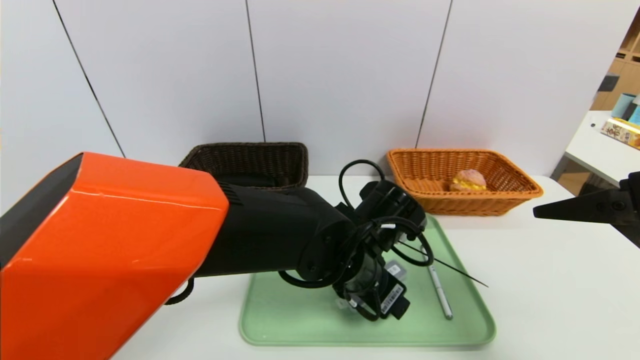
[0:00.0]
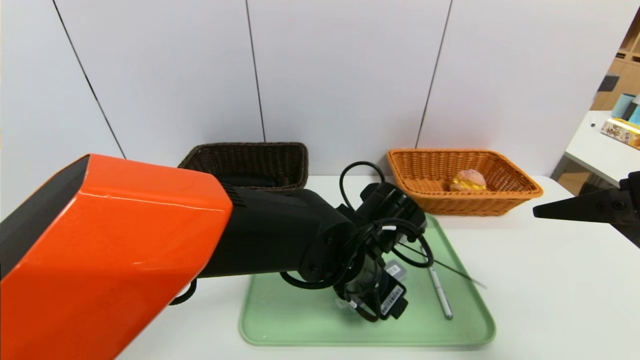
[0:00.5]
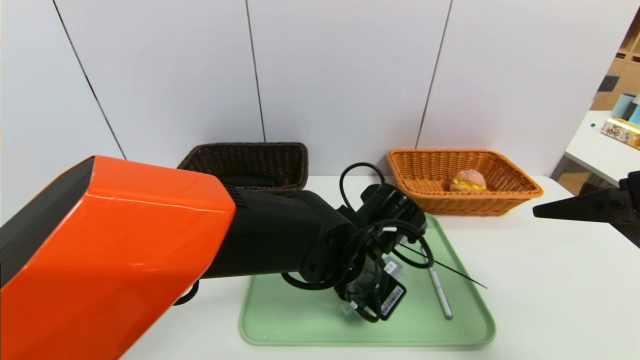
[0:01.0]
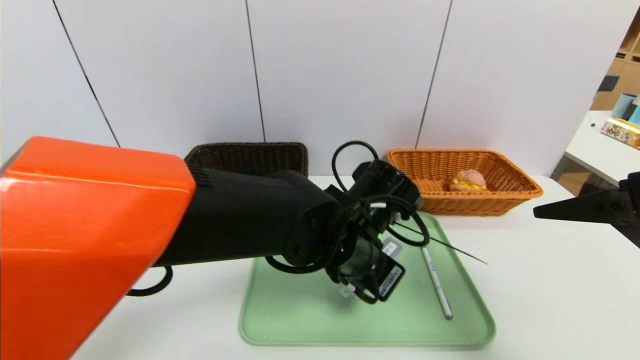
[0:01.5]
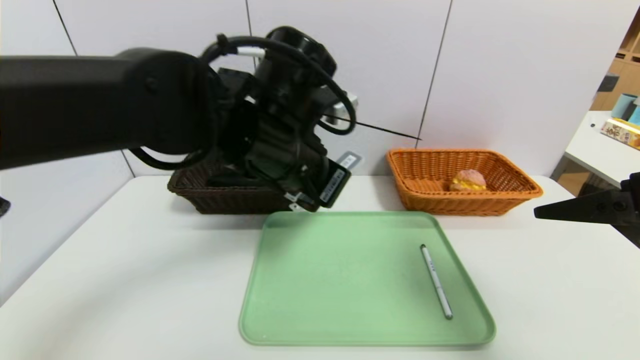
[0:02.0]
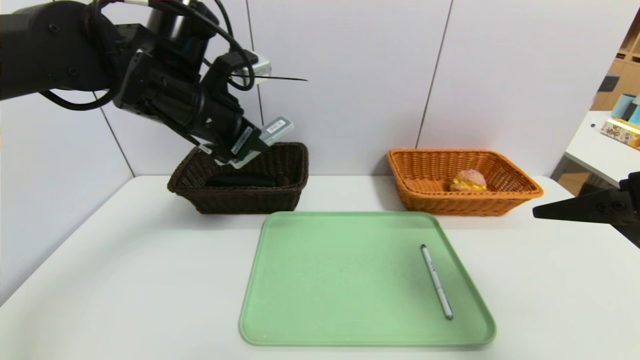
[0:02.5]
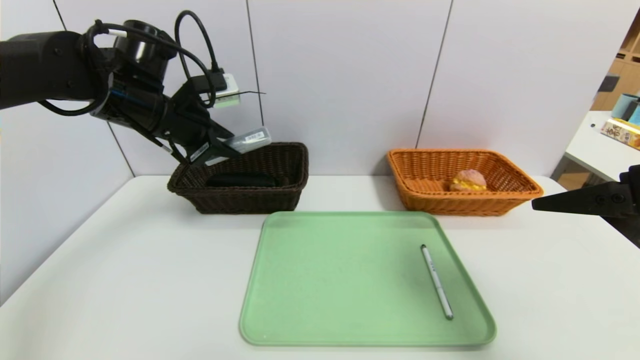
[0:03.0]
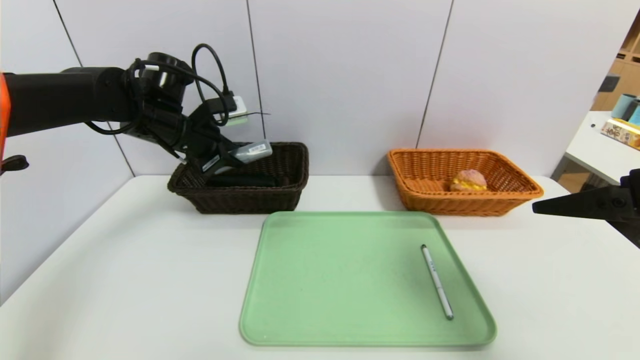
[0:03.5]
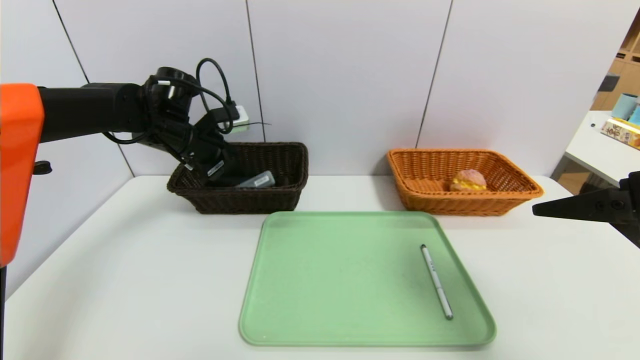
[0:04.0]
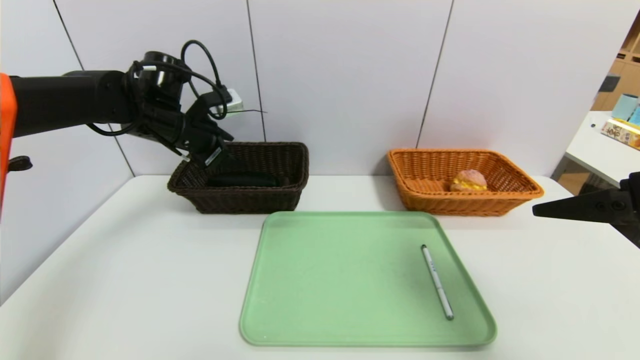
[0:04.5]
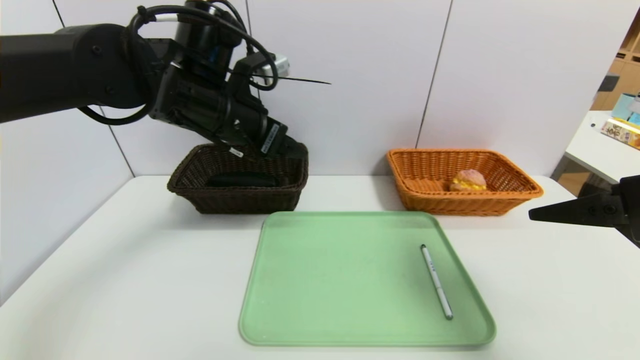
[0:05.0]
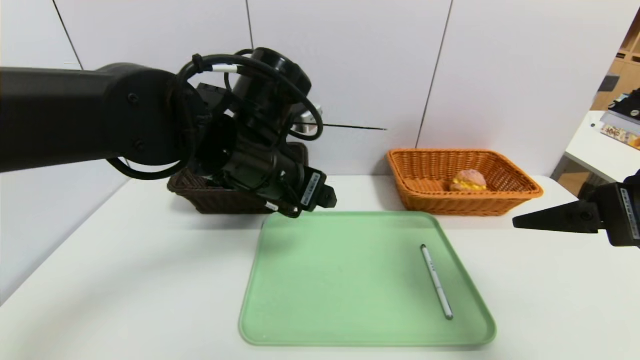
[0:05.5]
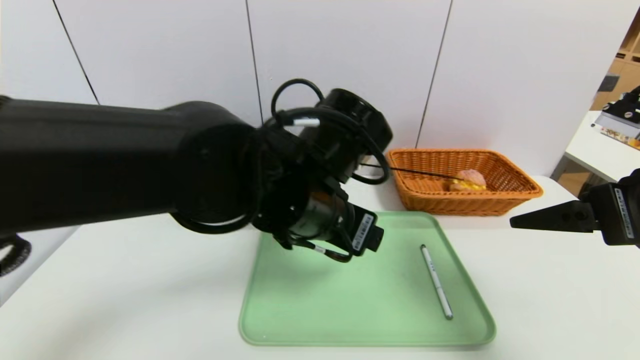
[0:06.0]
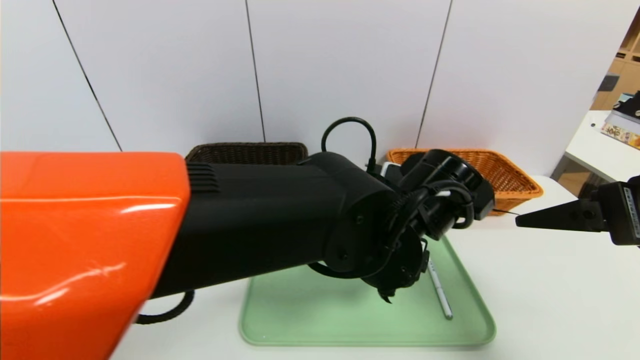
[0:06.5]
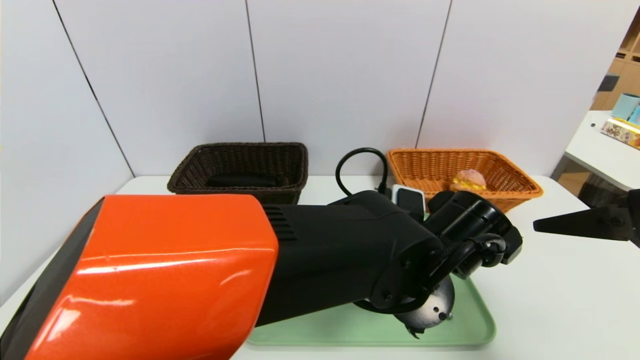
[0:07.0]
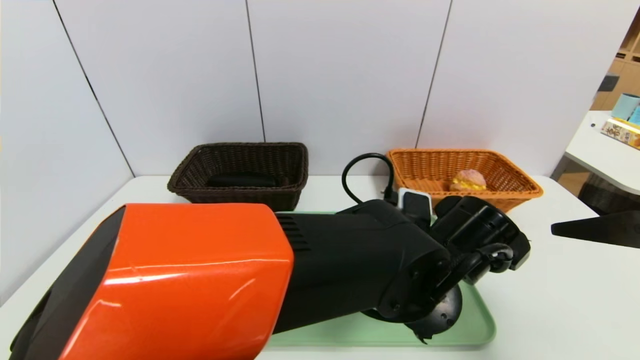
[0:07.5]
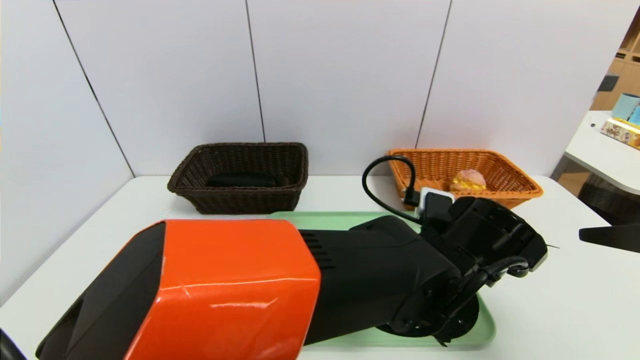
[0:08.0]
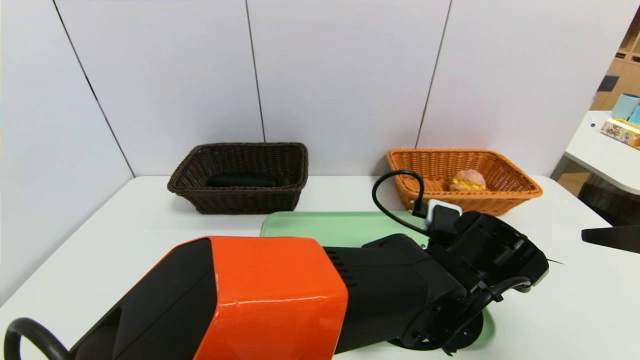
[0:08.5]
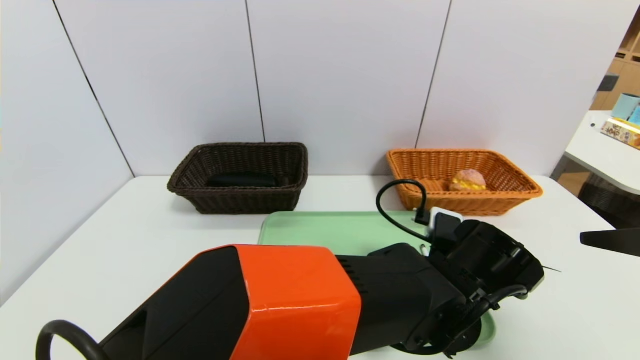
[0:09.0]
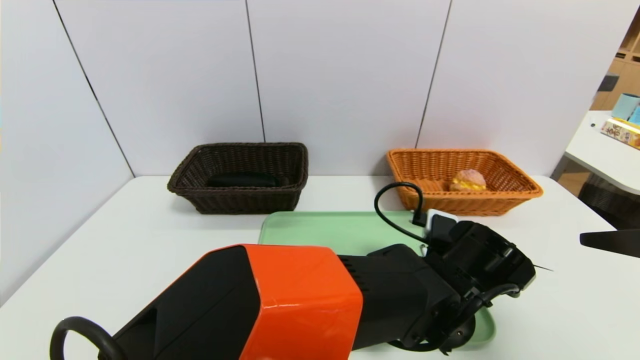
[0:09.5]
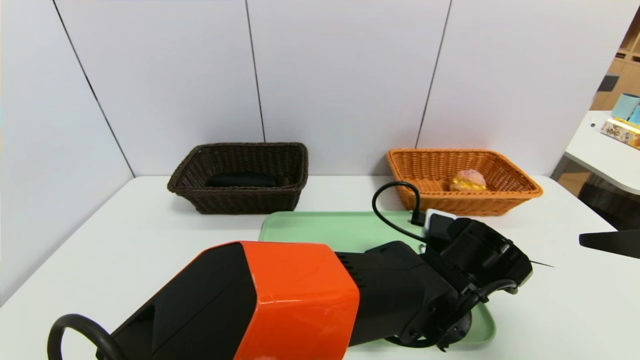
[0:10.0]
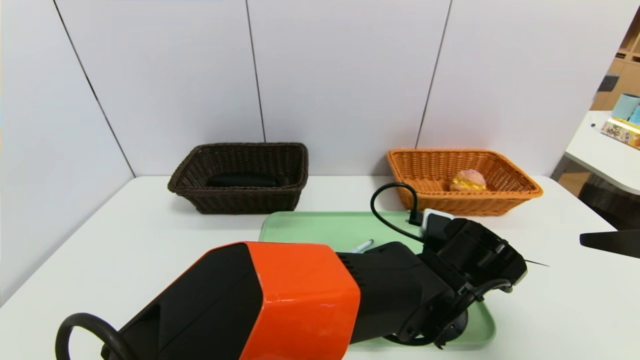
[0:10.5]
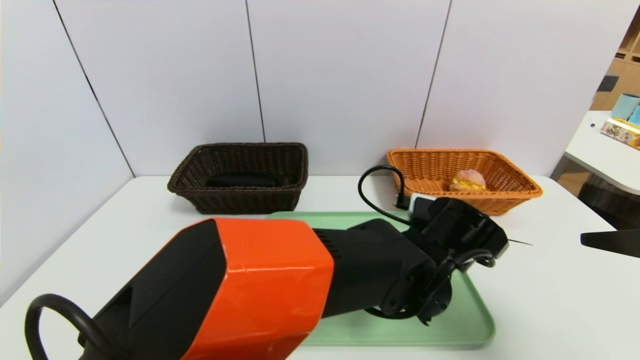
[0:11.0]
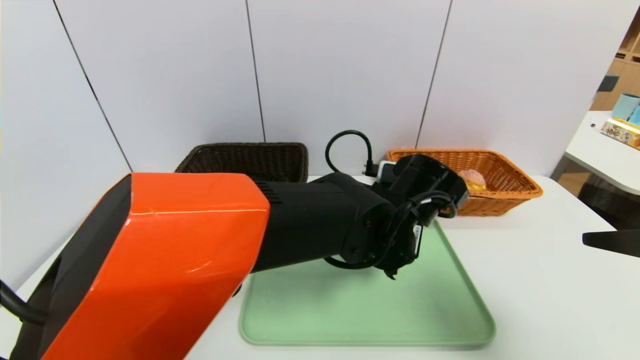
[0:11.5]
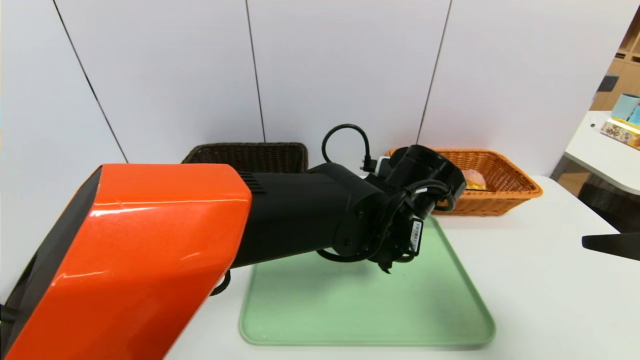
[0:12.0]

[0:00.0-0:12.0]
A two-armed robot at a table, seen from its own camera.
Task of the whole recording: place the food in the right basket with the right gripper, and place the non food items in the left basket with the left gripper.
Step, 0:00.0 to 0:04.0: Grasp the compass and put it in the left basket.
0:00.0 to 0:02.0: The left gripper heads upward and to the left, covering roughly 15 cm, and closes its fingers.
0:02.0 to 0:04.0: The left gripper travels to the left and forward by roughly 25 cm.
0:04.0 to 0:06.0: The left gripper heads to the right and backward, covering roughly 30 cm, and opens.
0:06.0 to 0:08.0: The left gripper travels to the right and downward by roughly 15 cm. The right gripper travels backward by roughly 5 cm.
0:08.0 to 0:10.0: The left gripper closes its fingers.
0:10.0 to 0:12.0: The left gripper is displaced upward and to the left by about 10 cm, and closes, then opens again.

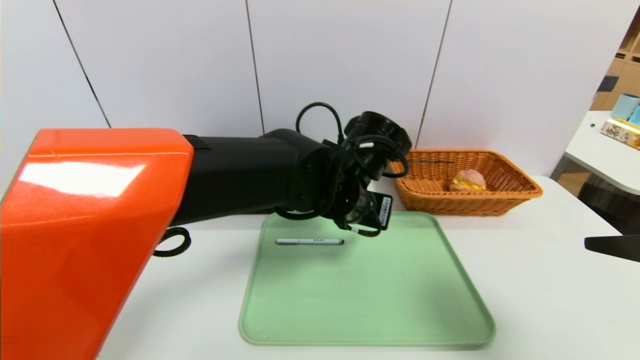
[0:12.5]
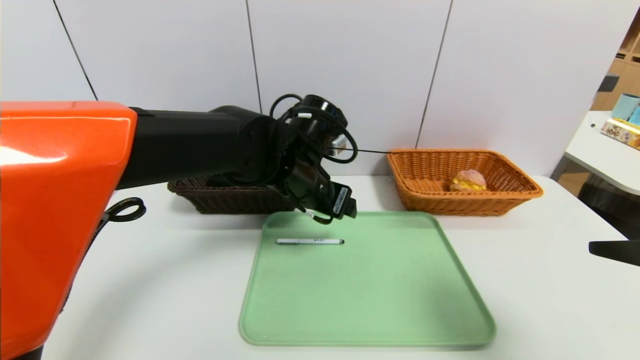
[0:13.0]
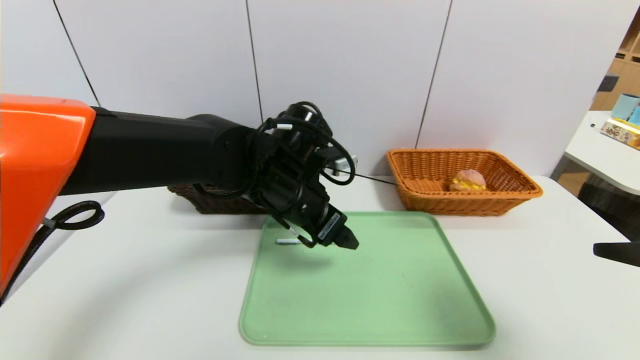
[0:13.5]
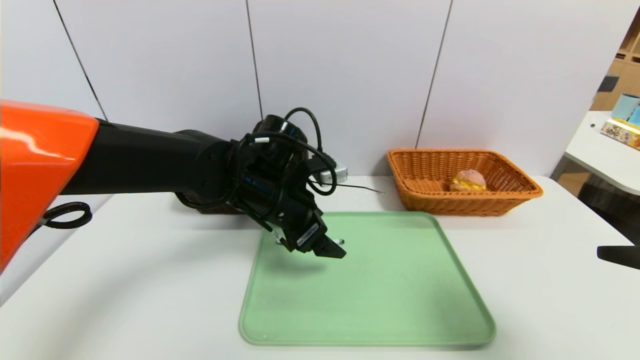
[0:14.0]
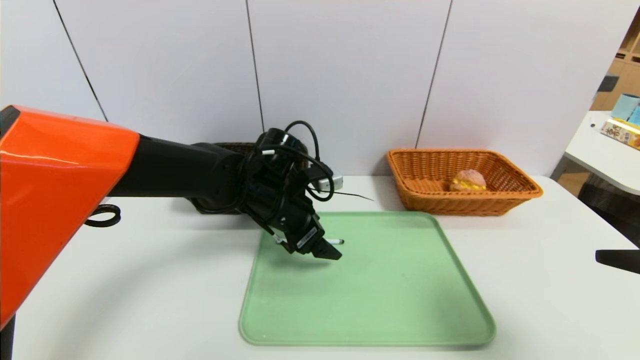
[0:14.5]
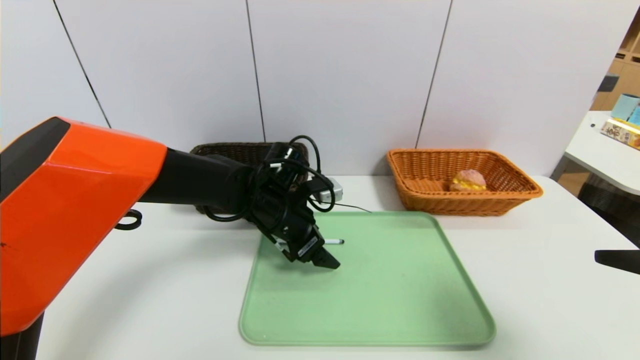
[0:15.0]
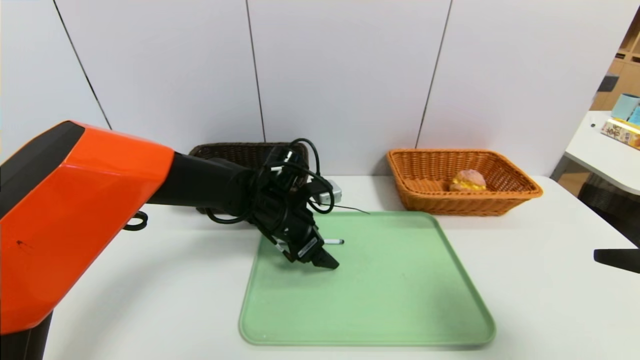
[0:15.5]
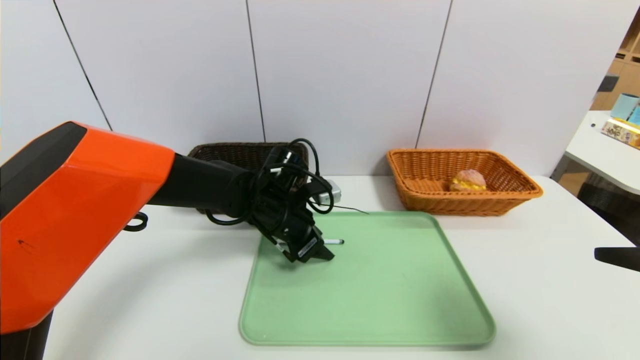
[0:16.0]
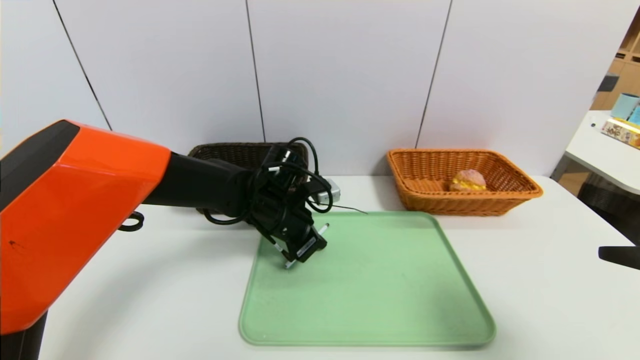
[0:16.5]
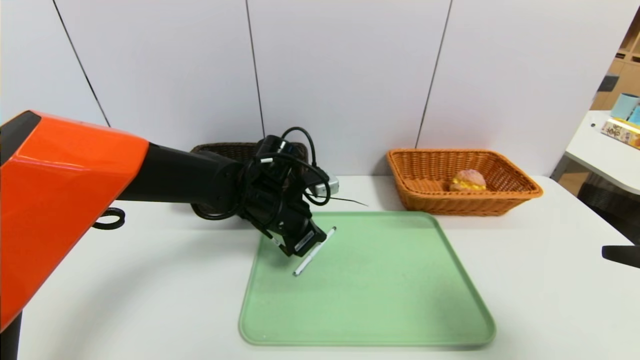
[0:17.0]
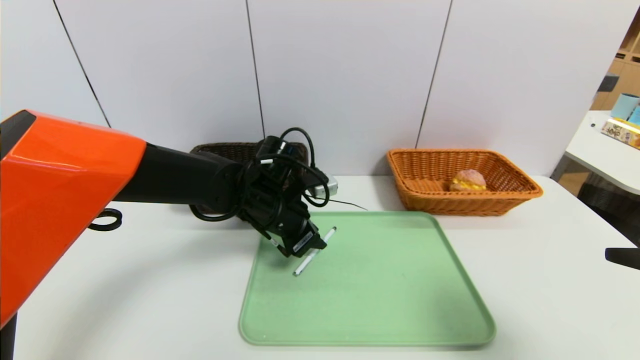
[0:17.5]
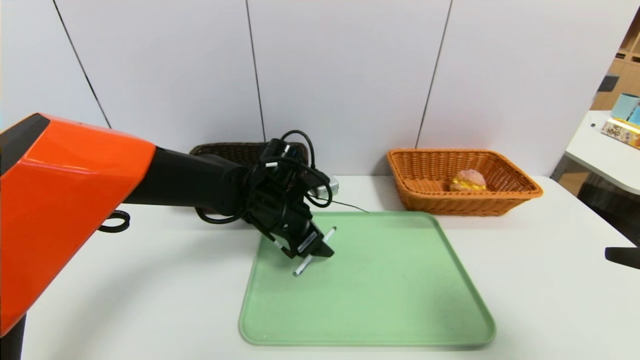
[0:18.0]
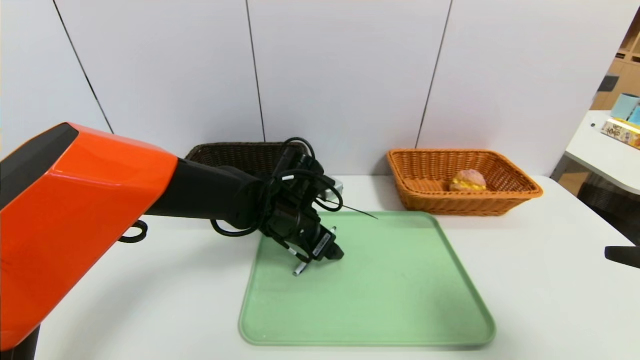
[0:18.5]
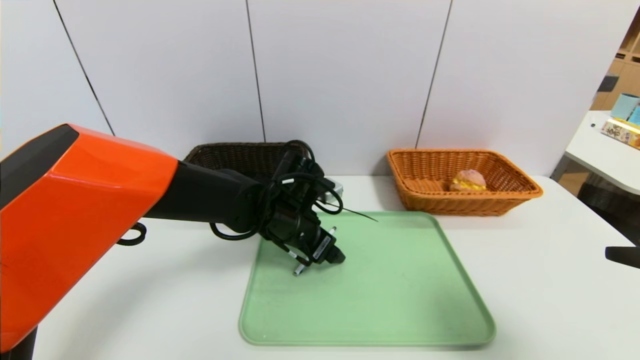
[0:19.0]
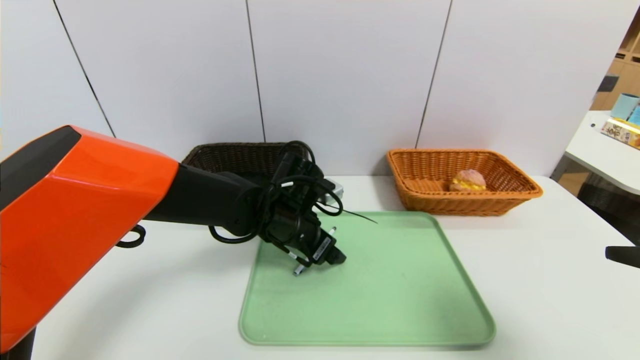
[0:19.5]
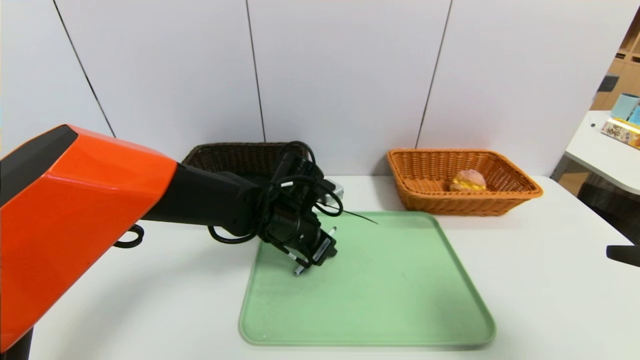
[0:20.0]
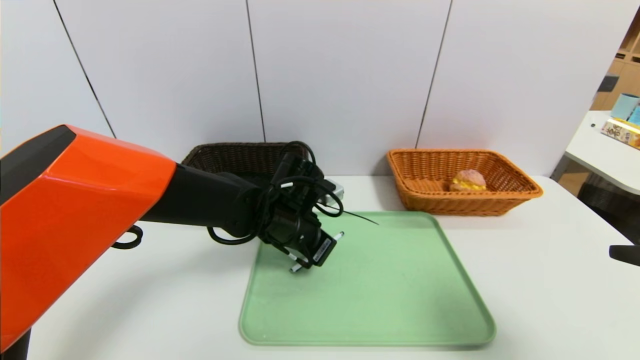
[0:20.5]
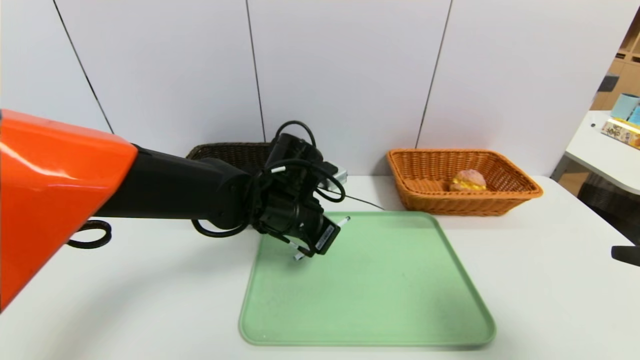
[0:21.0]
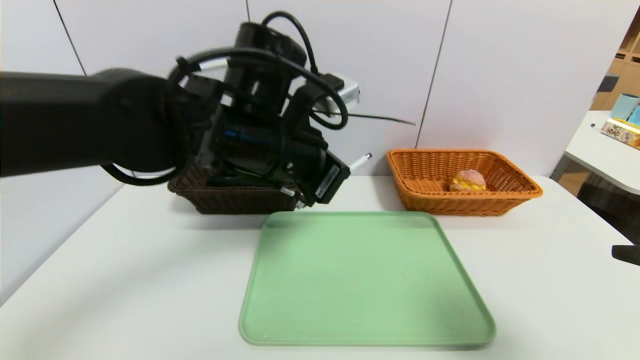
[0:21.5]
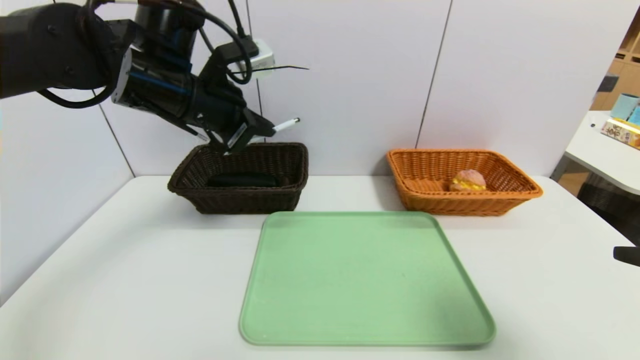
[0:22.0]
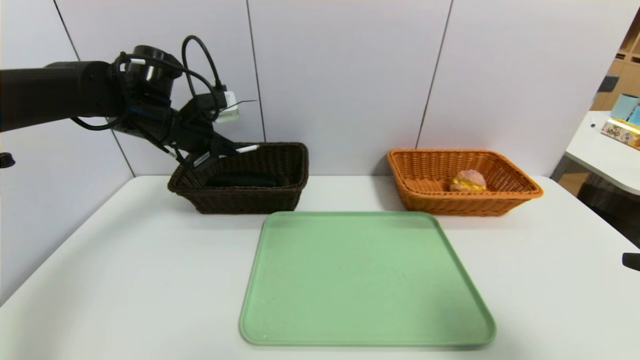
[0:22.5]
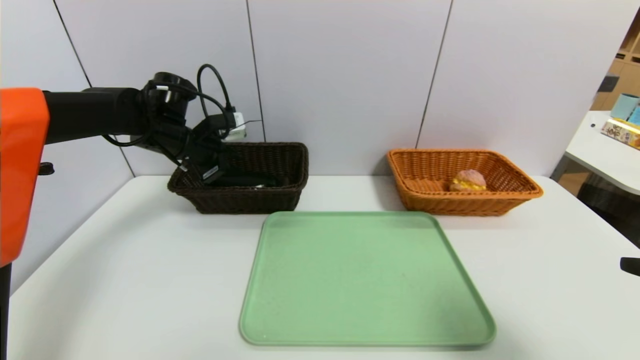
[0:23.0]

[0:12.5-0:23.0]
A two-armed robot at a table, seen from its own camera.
Task of the whole recording: place the food in the right basket with the right gripper, and place the non food items in the left basket with the left gripper.
0:12.5 to 0:14.5: The left gripper moves to the left, some 10 cm.
0:14.5 to 0:16.5: The left gripper closes its fingers.
0:16.5 to 0:19.0: The left gripper opens its fingers.
0:19.0 to 0:21.0: The left gripper closes.
0:21.0 to 0:23.0: The left gripper travels to the left and forward by some 20 cm.
